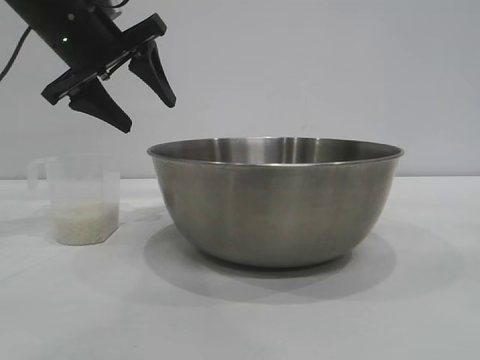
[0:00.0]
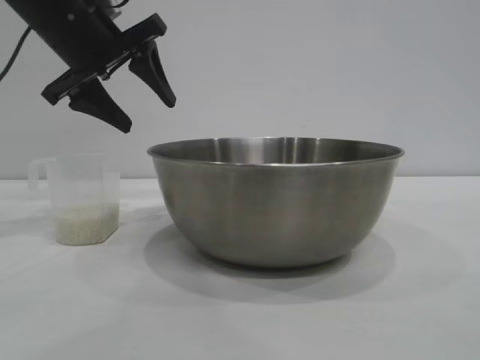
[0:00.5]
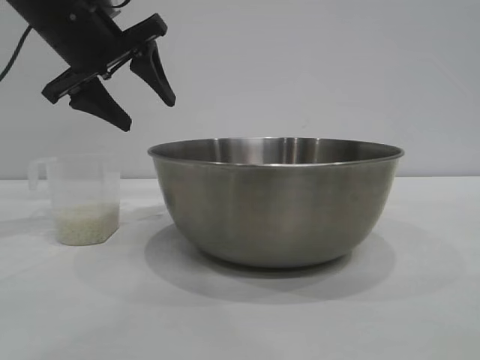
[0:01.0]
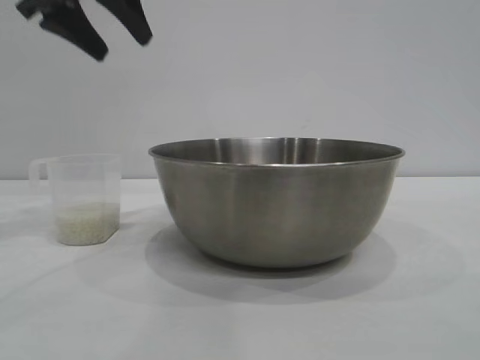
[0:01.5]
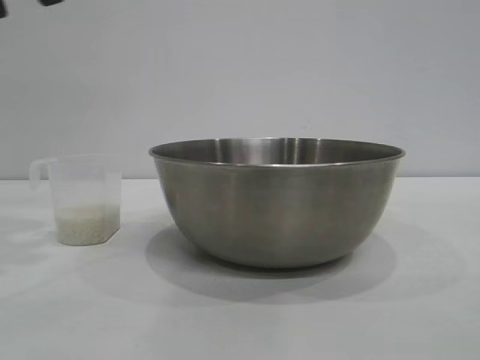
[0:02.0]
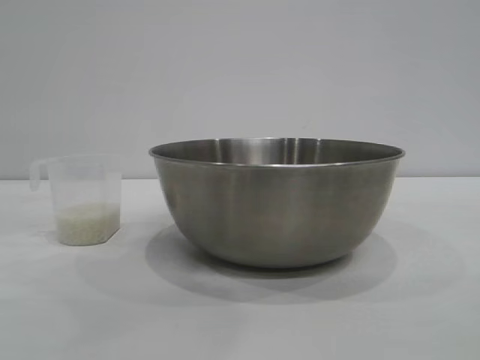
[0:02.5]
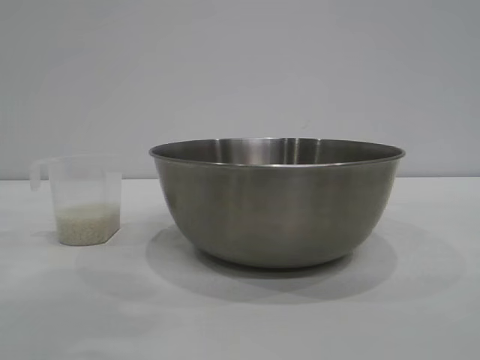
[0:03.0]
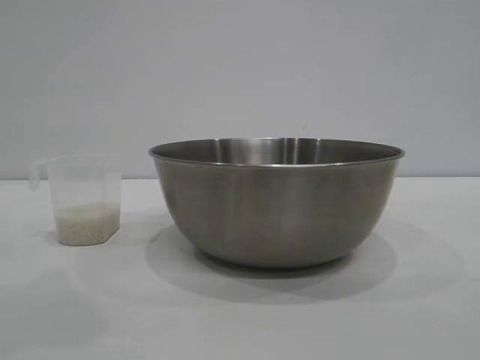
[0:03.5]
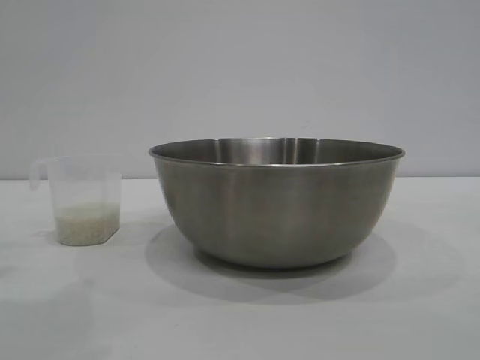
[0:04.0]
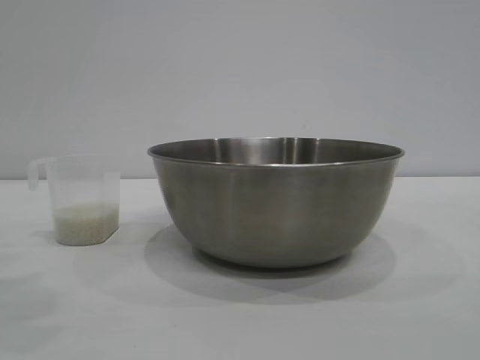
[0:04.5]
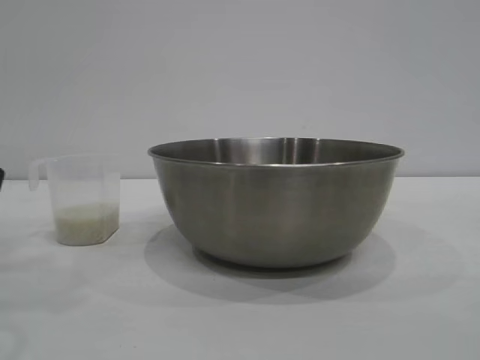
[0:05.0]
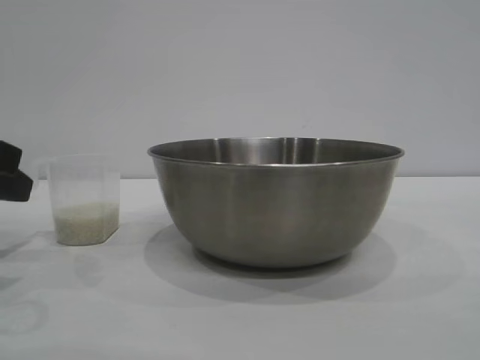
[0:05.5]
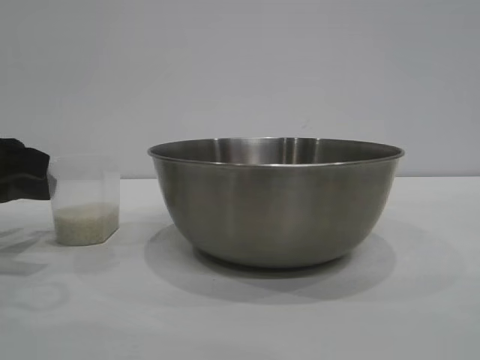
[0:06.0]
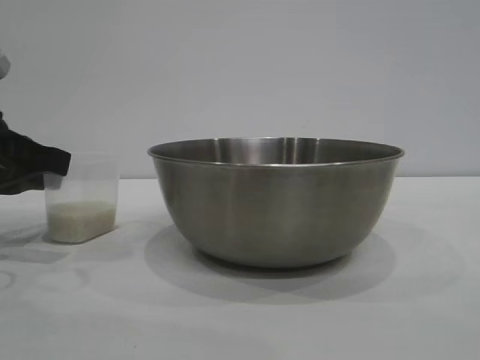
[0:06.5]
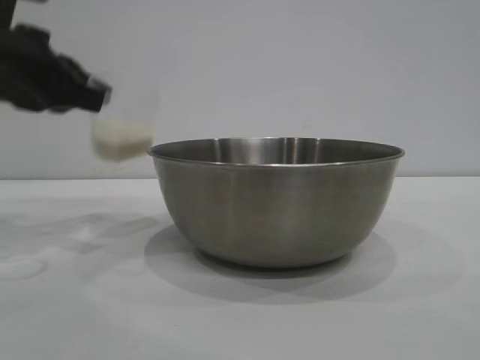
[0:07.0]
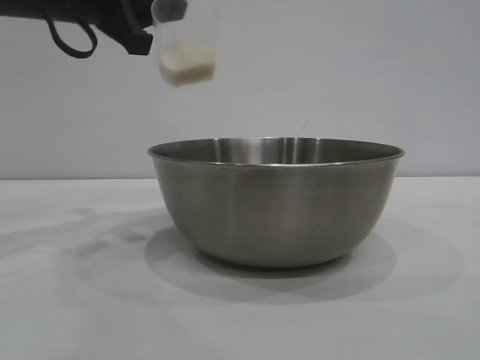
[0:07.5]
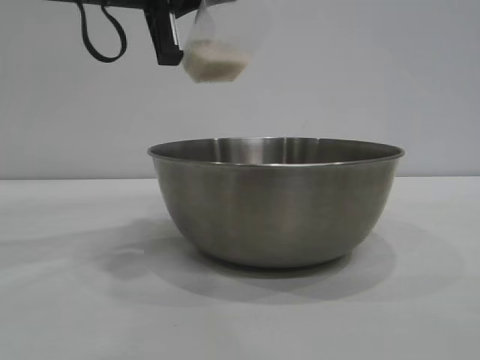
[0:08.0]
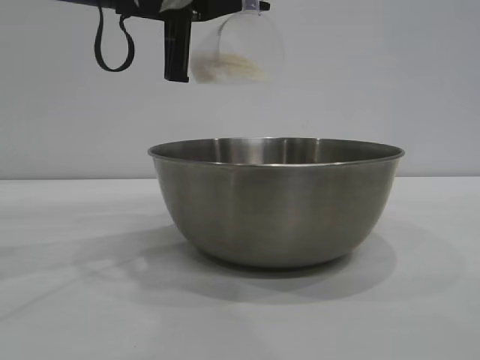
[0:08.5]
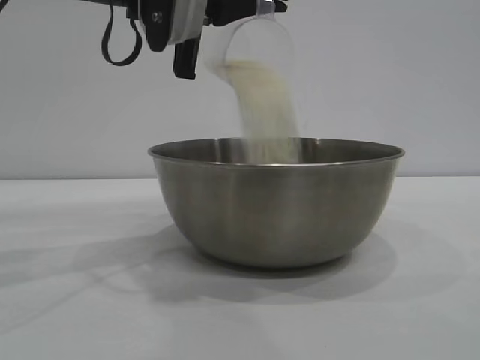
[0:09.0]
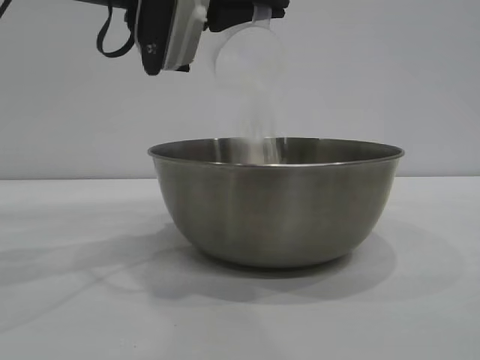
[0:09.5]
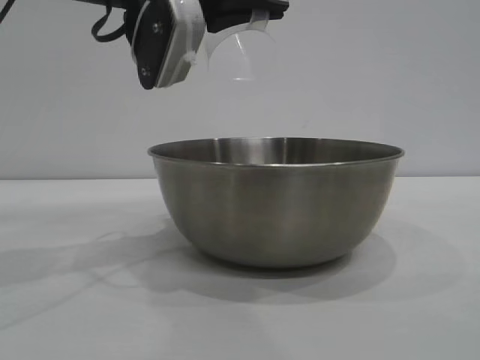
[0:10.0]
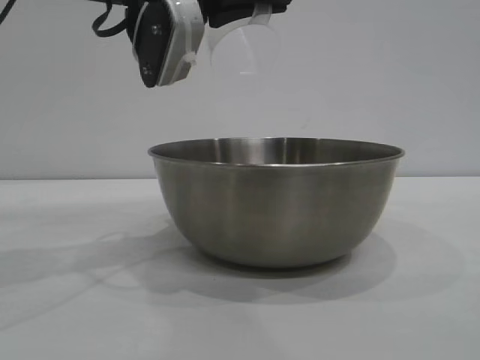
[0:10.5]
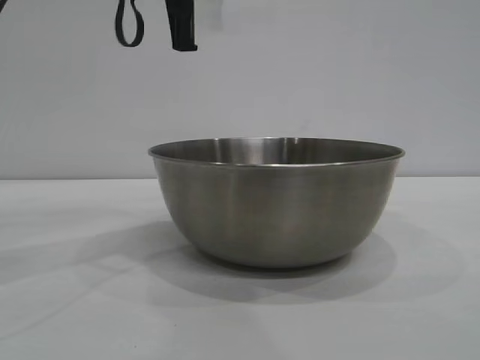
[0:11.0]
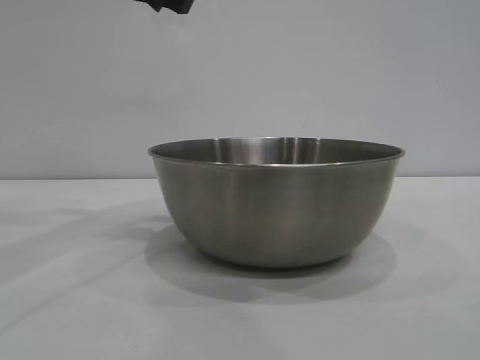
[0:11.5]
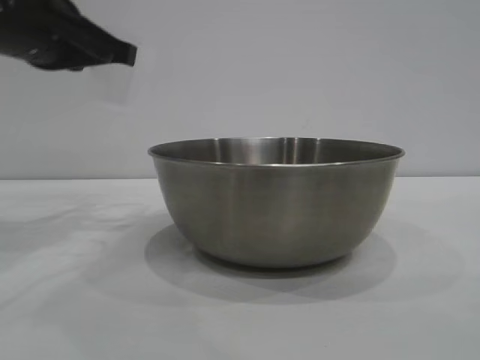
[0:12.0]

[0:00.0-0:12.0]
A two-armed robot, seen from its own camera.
Task of the whole recording: the right gripper grasp the rice container and place it in the center of the table, the left gripper grasp the rice scoop and pour the rice into the rice container.
Step, 0.0 to 7.0 s: Pick up the cup with rice in it with the left gripper.
Step, 7.5 to 11.0 s: Pour the rice from the cup into the bowl with the left gripper.

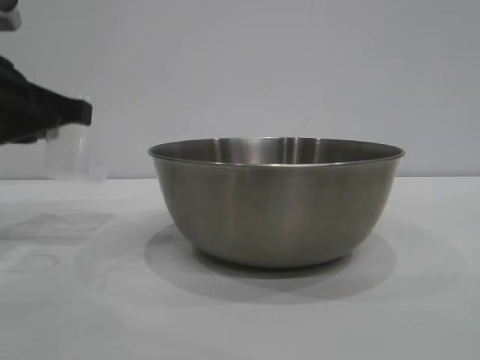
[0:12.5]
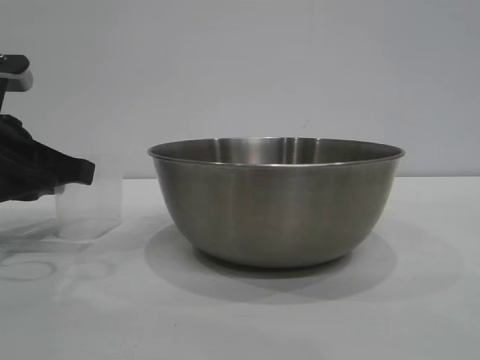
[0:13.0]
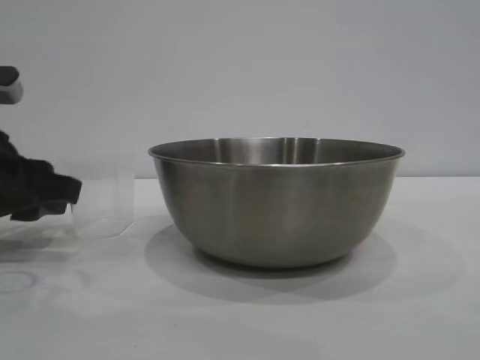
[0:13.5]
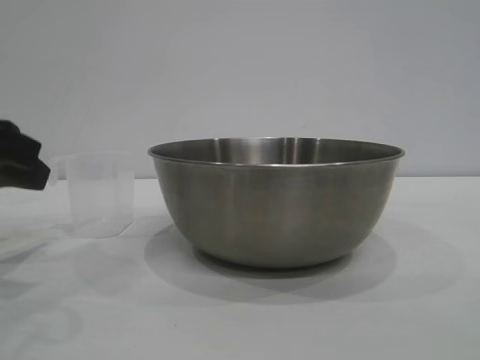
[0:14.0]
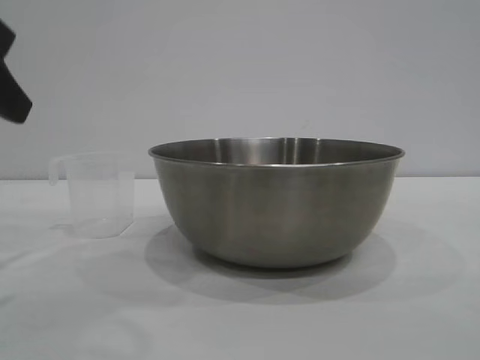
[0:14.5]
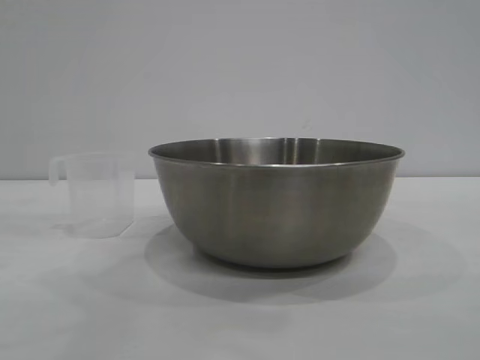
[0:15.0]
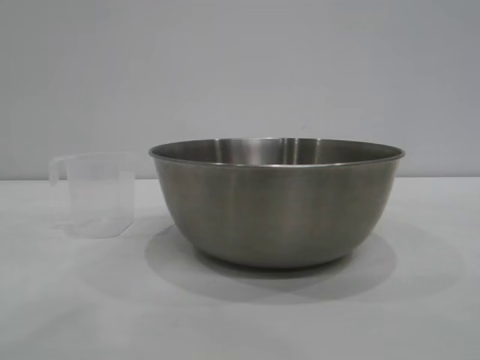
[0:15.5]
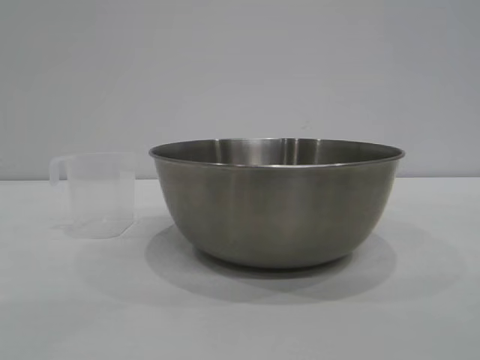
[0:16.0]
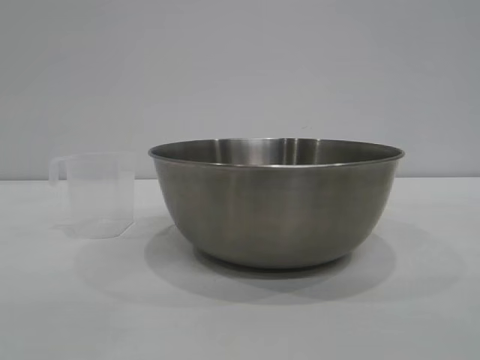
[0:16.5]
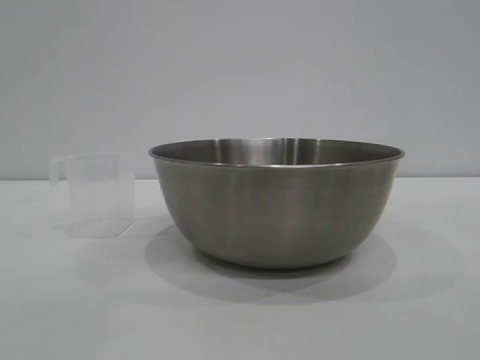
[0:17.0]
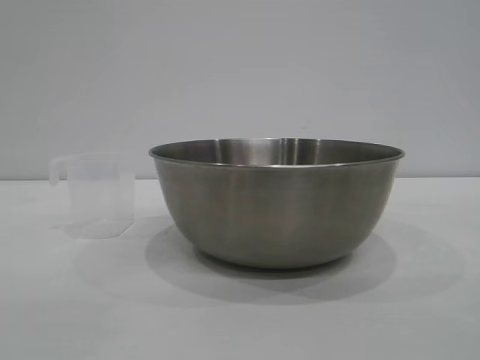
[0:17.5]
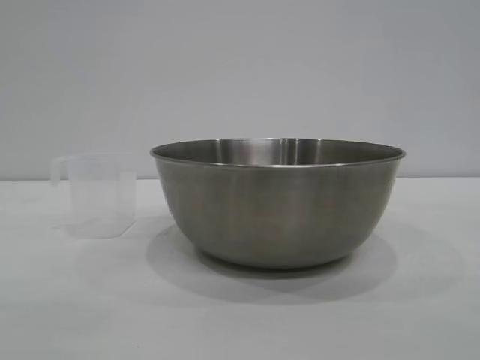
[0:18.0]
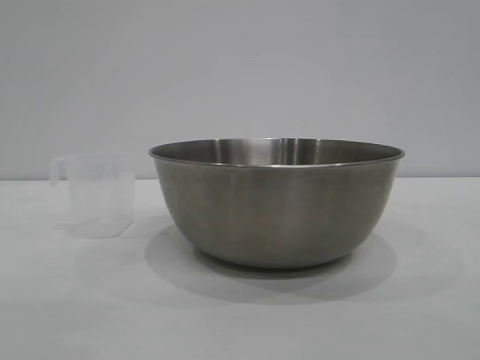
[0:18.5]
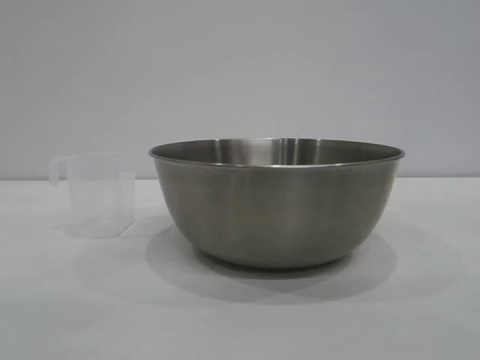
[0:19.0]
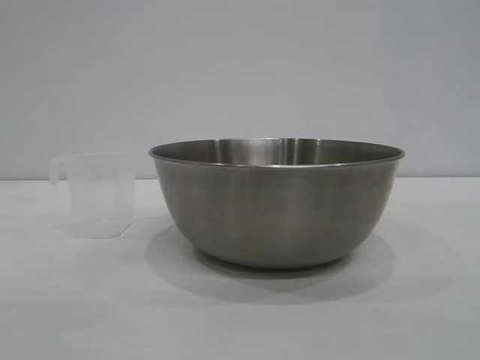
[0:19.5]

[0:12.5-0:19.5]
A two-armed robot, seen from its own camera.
Task of the whole recording: the right gripper grasp the rice container and place it in the center of the table, the left gripper grasp the rice scoop and pour the rice into the rice container.
Step, 12.5 to 14.0 s: Place the cup on the table with the left gripper.

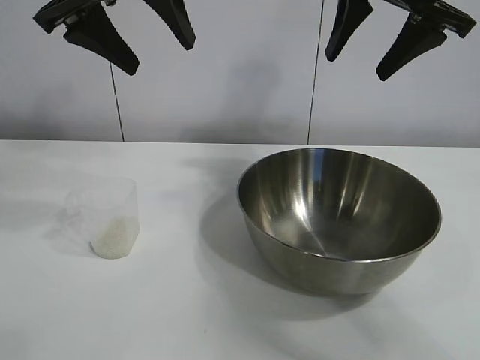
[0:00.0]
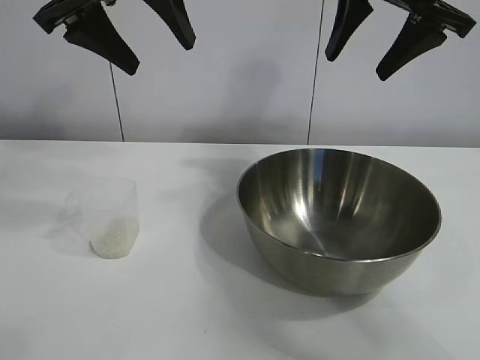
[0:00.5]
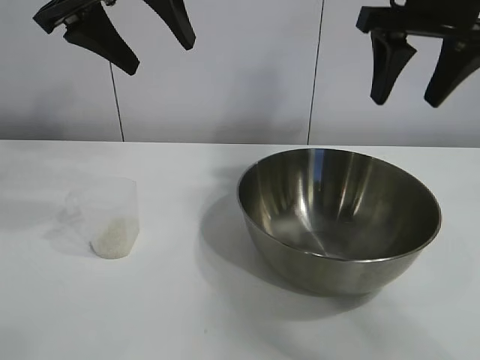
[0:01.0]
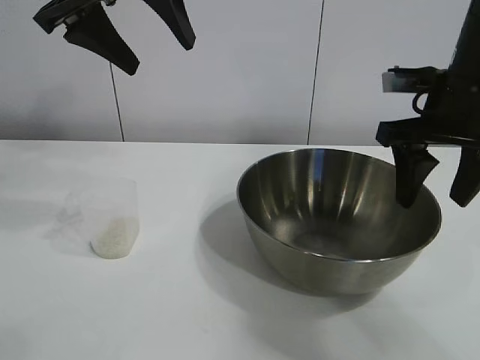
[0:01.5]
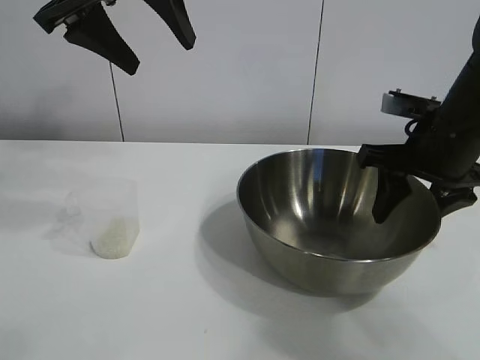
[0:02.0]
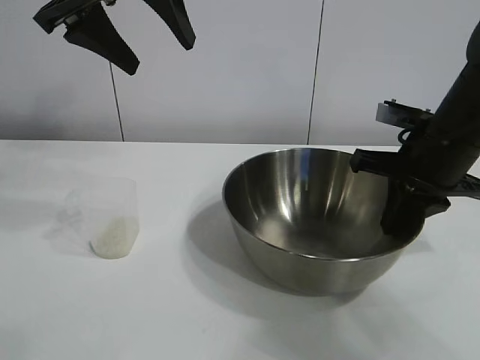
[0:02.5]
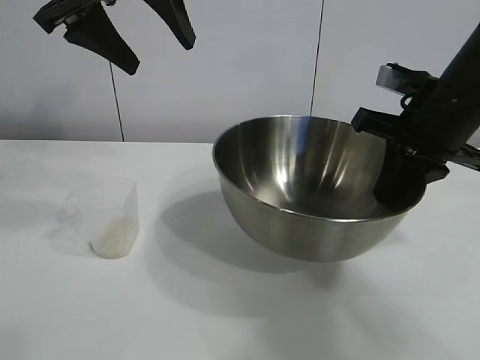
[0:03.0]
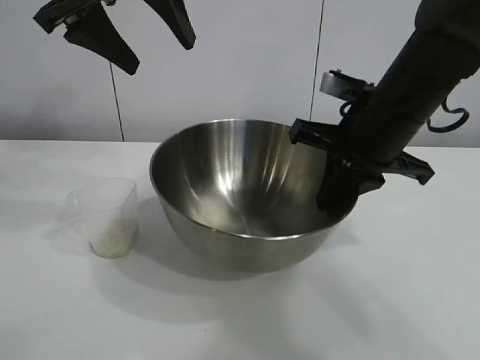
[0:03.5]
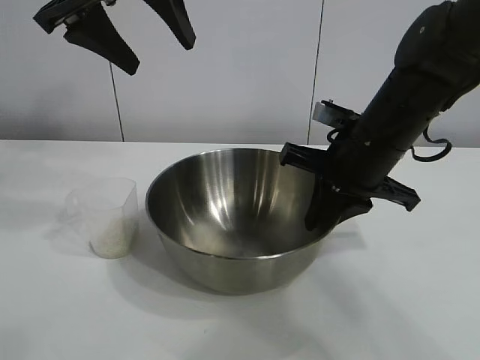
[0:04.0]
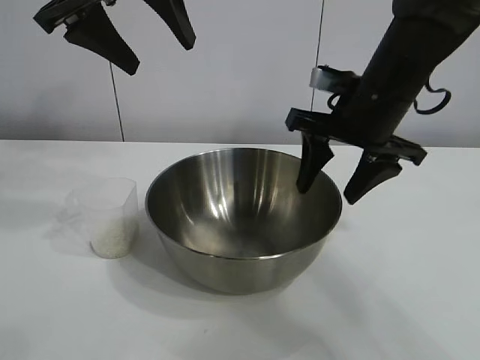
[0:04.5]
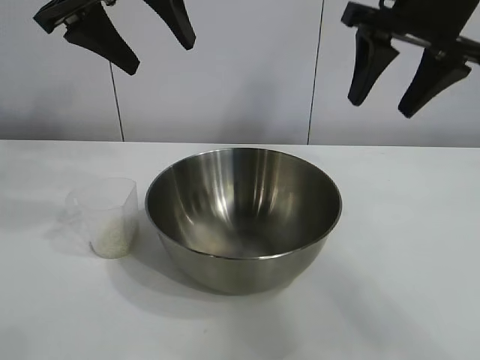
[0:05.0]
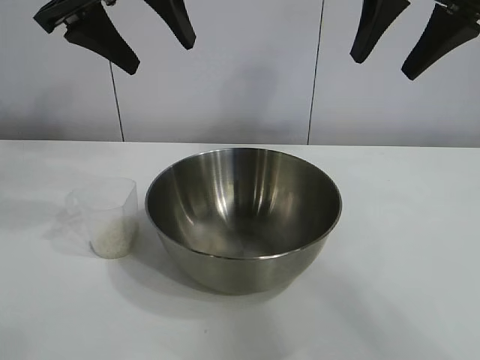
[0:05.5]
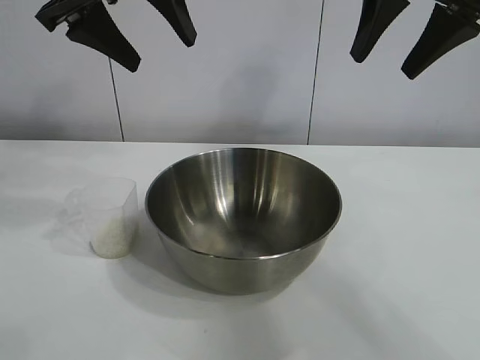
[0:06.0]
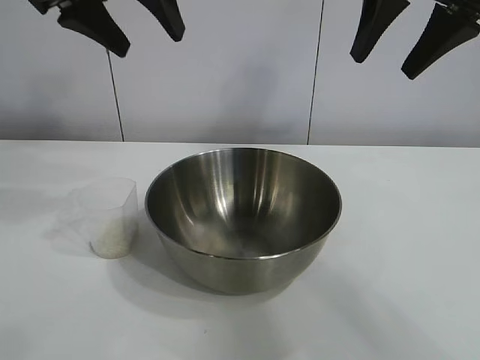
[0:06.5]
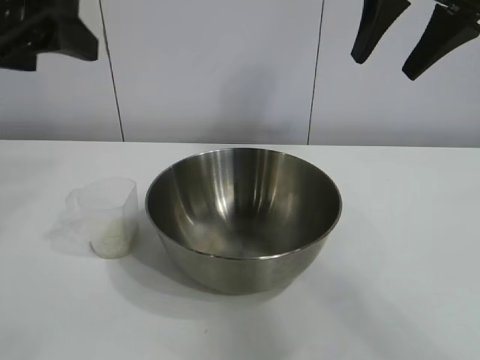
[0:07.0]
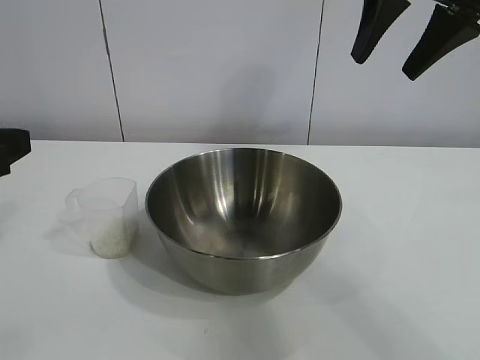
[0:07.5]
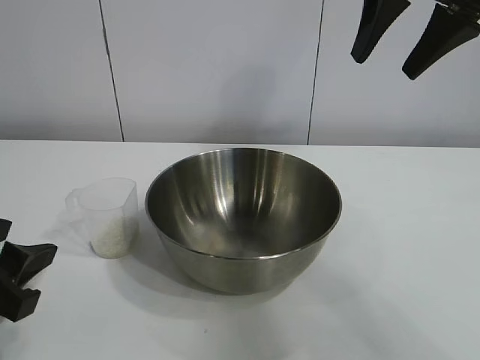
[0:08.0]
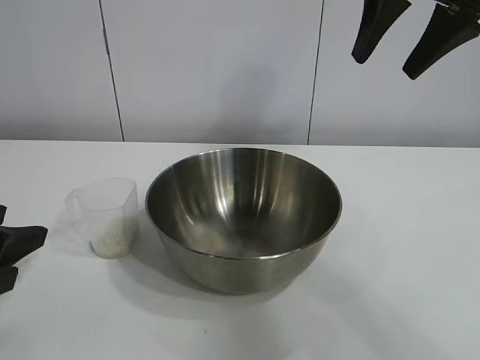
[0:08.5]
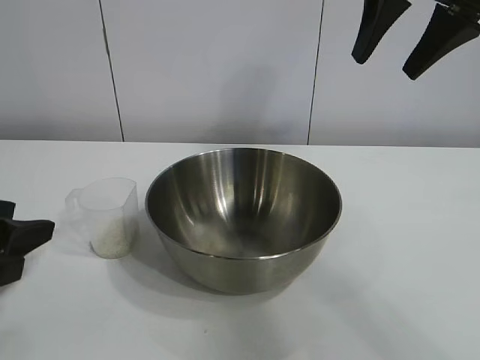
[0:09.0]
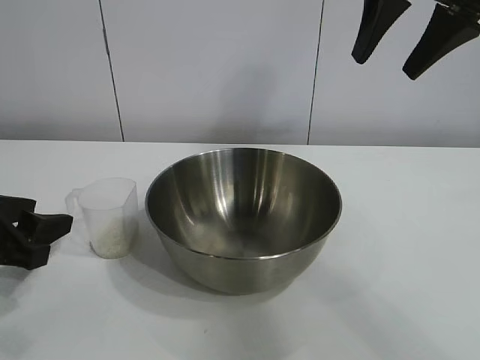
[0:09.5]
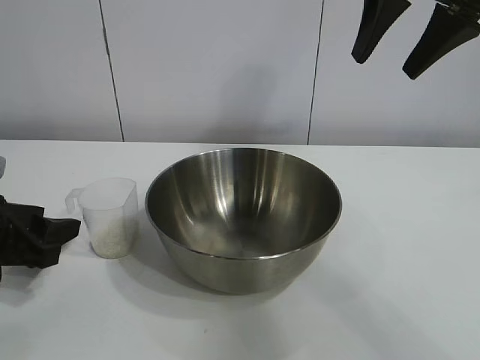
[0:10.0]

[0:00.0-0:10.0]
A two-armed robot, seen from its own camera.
Task of the whole recording: the right gripper grasp the rice container and place it in the center of the table, the left gripper grasp the rice scoop and pour the rice into the rice container.
Step, 1.0 to 4.0 s: Move the bowl in the center of view with right gripper.
